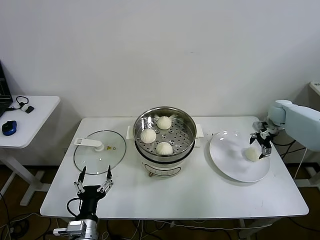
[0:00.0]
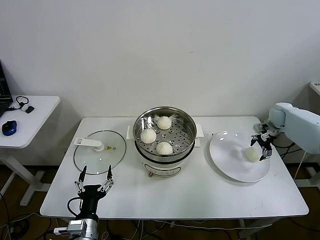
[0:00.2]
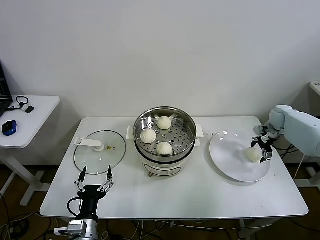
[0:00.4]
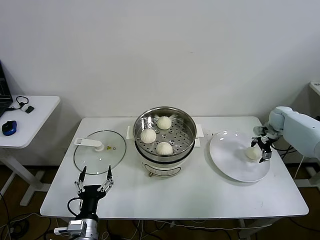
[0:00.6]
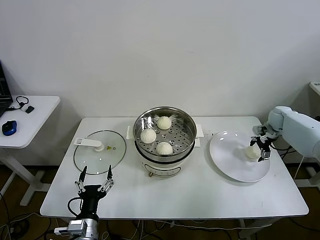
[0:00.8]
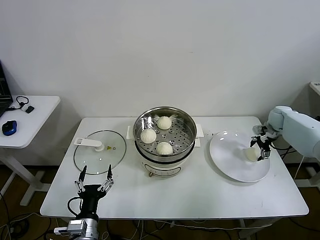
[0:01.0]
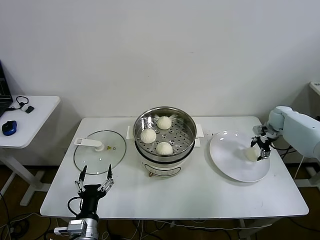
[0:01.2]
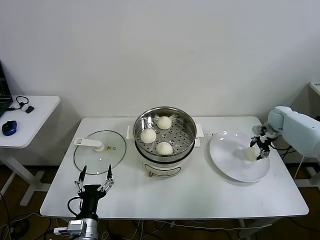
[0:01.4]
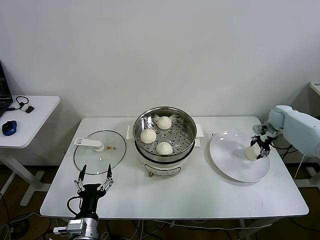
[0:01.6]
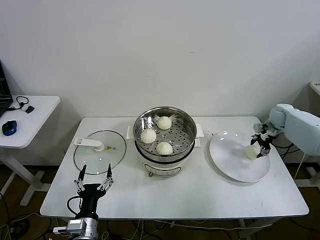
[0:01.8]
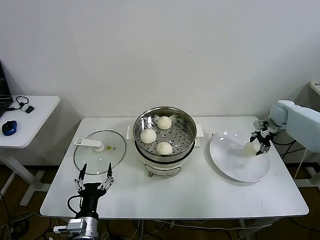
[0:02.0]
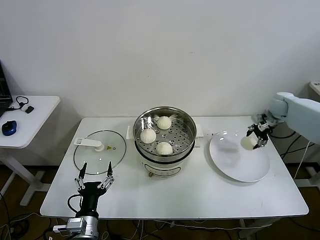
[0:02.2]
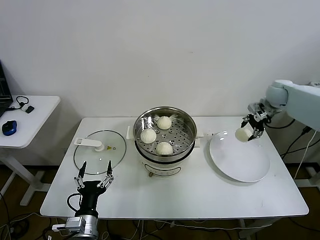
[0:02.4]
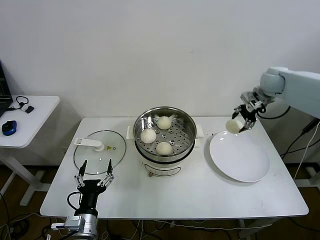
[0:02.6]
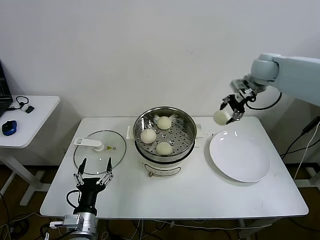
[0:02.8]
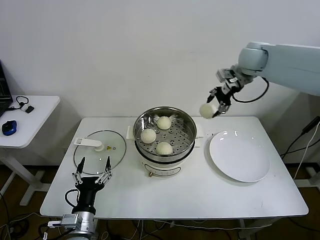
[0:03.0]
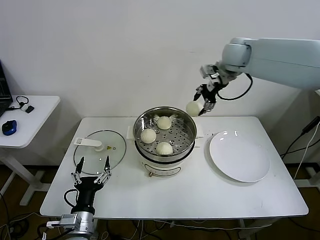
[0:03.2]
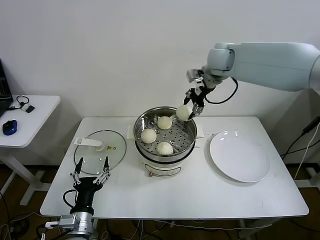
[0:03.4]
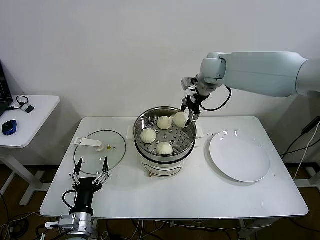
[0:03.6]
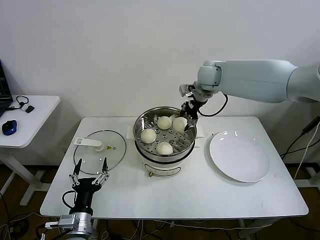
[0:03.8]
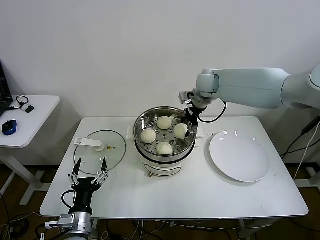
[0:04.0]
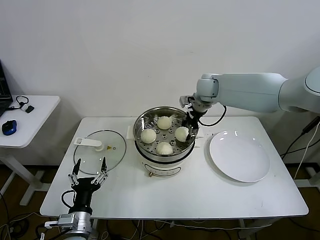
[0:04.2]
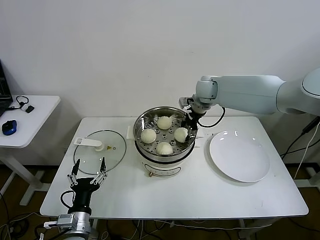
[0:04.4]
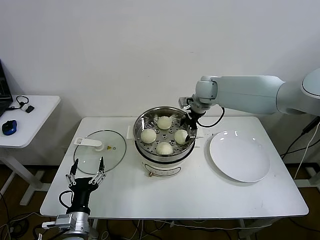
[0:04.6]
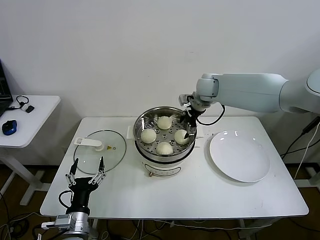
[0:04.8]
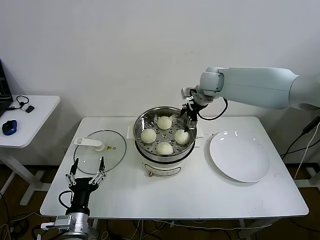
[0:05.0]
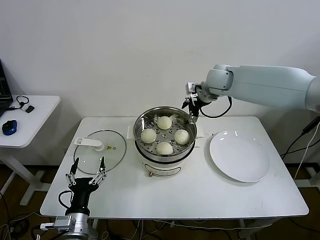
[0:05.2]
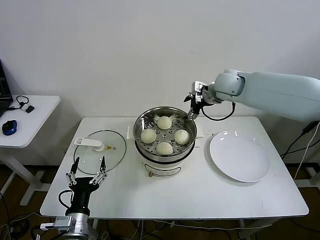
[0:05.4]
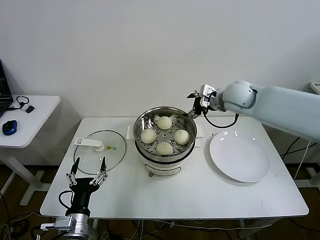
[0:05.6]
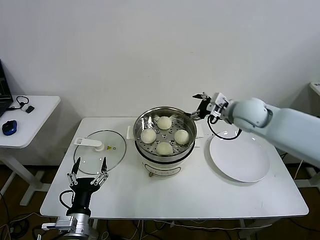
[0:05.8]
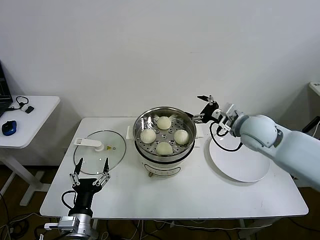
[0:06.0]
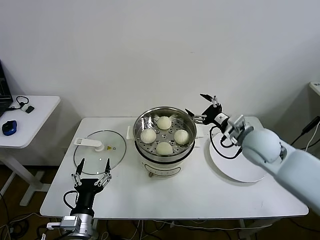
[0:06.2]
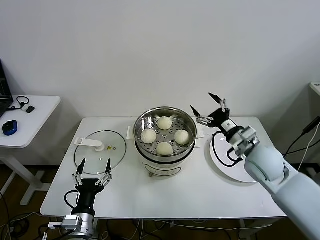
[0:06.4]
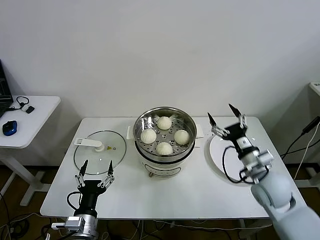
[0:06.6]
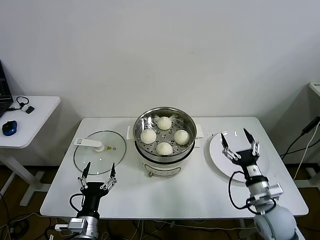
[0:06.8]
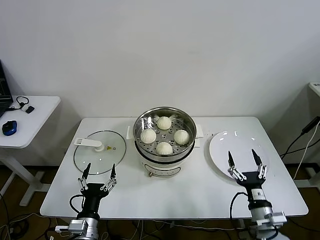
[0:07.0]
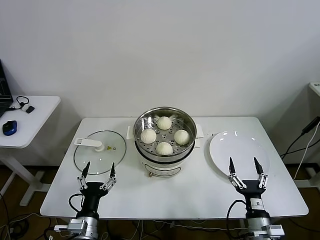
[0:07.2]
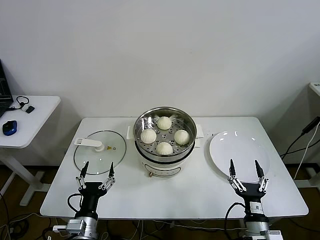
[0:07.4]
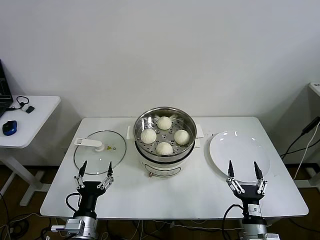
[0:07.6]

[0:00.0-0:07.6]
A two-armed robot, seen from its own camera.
Step, 0:01.6 to 0:04.8: Place the baozi on the steamer with right gripper.
0:00.0 to 0:01.6: The right gripper closes up.
0:01.6 to 0:03.0: The right gripper is displaced upward and to the left by roughly 30 cm.
0:03.0 to 0:04.6: The right gripper goes approximately 15 cm to the left and downward, and opens its fingers.
0:04.6 to 0:06.0: The right gripper moves backward and to the right, roughly 20 cm.
0:06.0 to 0:07.6: The right gripper goes approximately 40 cm backward and downward.

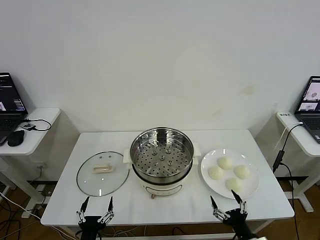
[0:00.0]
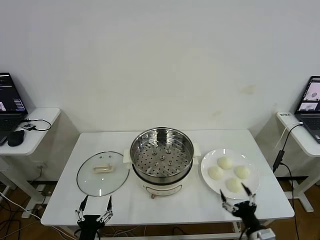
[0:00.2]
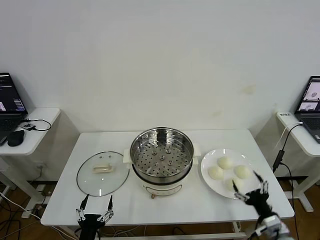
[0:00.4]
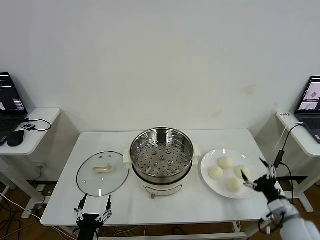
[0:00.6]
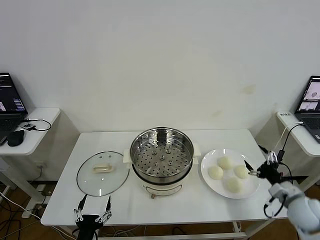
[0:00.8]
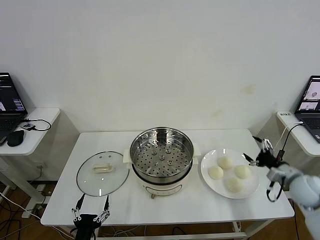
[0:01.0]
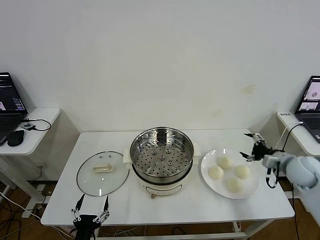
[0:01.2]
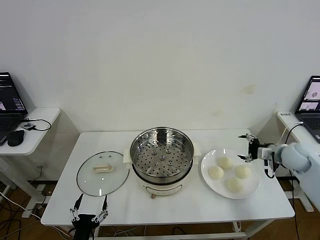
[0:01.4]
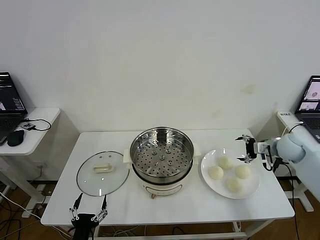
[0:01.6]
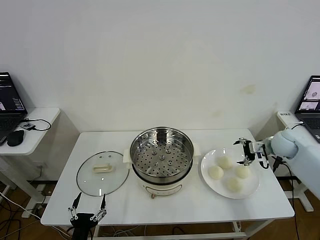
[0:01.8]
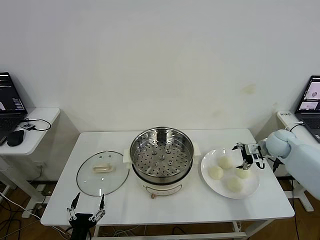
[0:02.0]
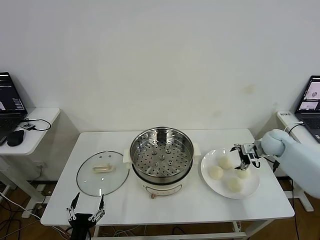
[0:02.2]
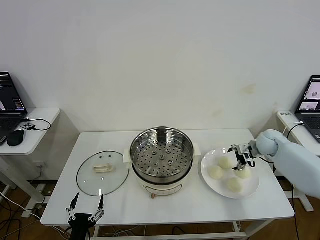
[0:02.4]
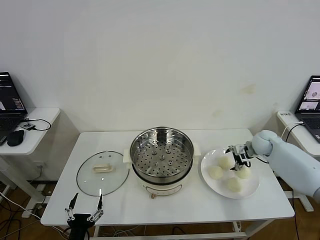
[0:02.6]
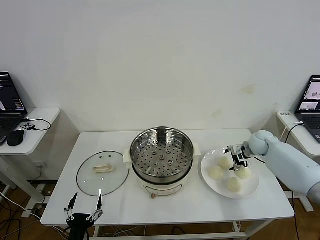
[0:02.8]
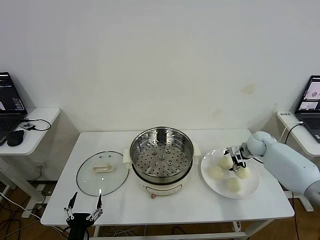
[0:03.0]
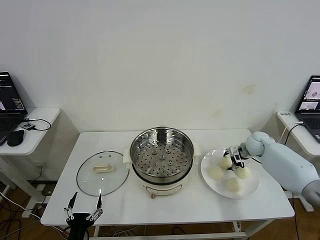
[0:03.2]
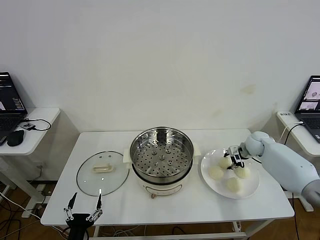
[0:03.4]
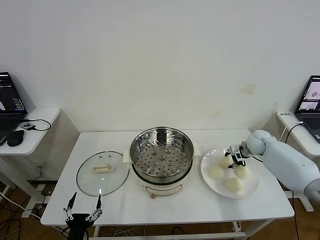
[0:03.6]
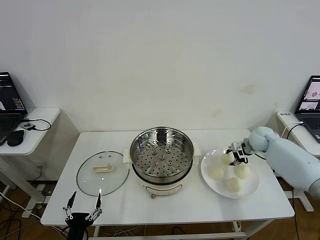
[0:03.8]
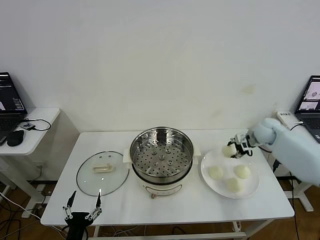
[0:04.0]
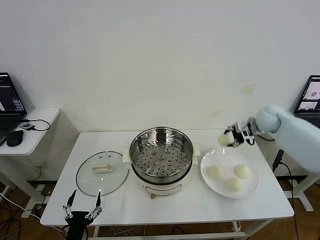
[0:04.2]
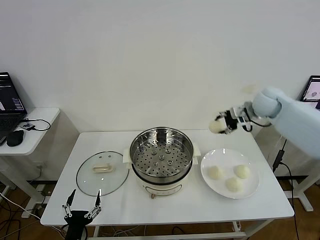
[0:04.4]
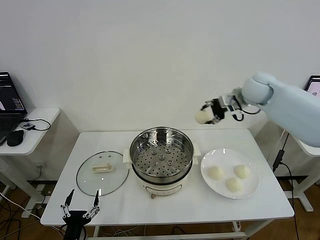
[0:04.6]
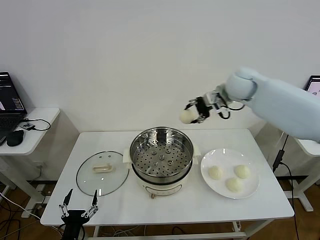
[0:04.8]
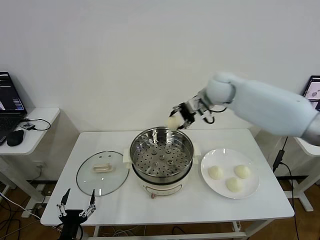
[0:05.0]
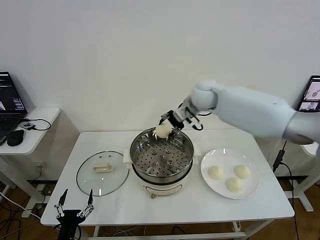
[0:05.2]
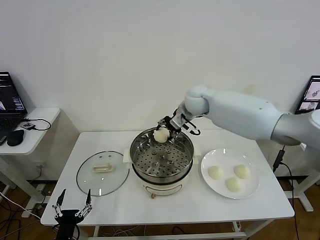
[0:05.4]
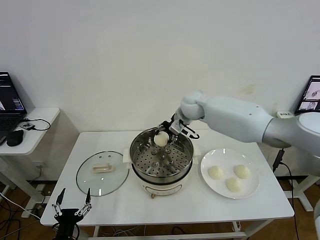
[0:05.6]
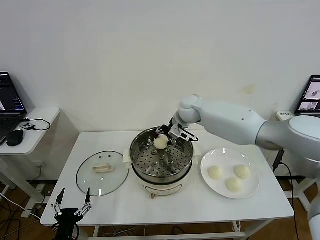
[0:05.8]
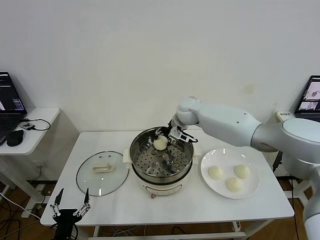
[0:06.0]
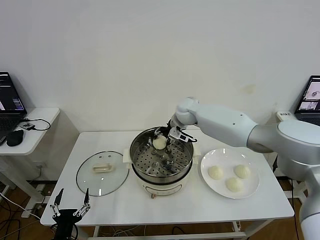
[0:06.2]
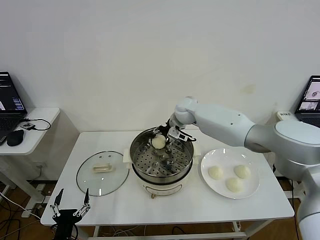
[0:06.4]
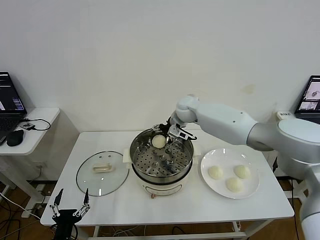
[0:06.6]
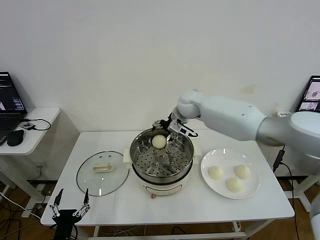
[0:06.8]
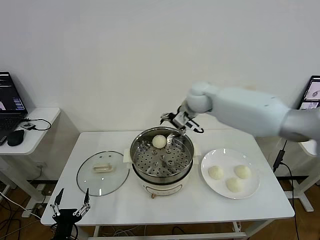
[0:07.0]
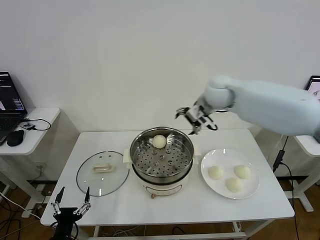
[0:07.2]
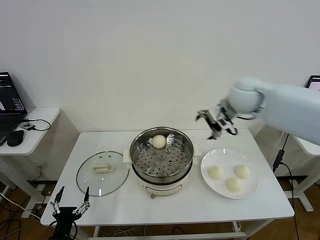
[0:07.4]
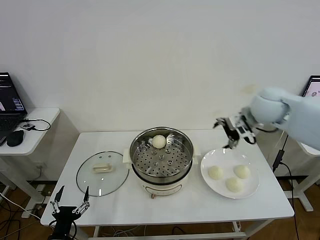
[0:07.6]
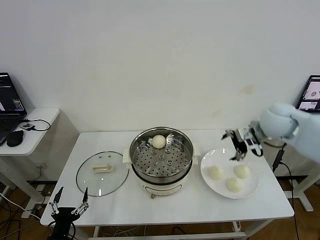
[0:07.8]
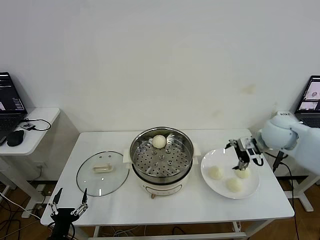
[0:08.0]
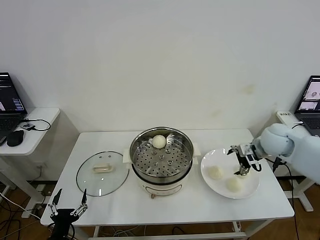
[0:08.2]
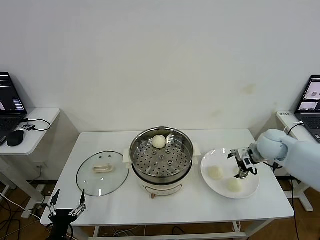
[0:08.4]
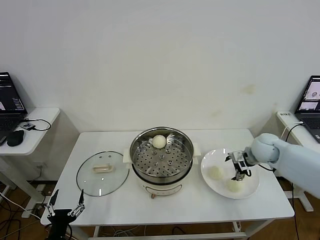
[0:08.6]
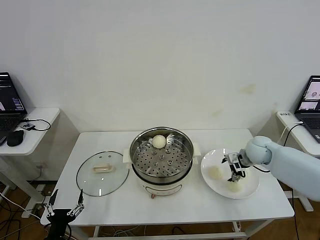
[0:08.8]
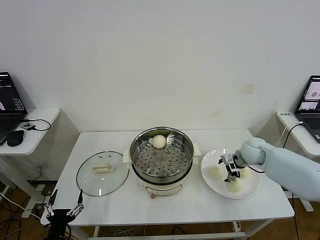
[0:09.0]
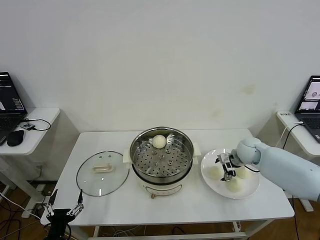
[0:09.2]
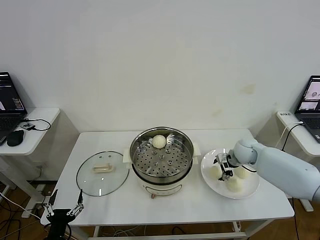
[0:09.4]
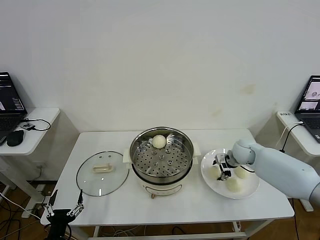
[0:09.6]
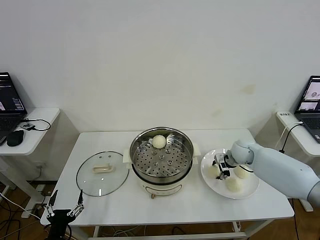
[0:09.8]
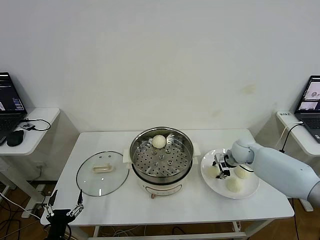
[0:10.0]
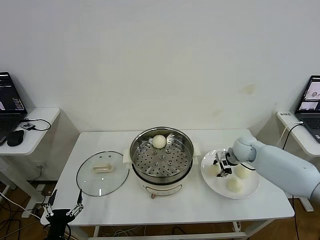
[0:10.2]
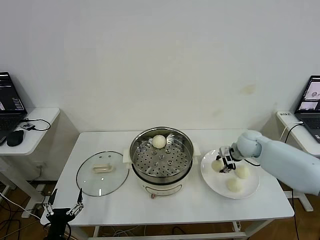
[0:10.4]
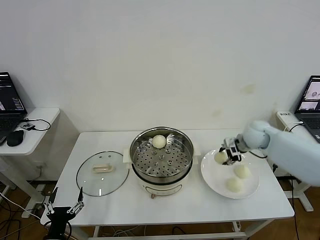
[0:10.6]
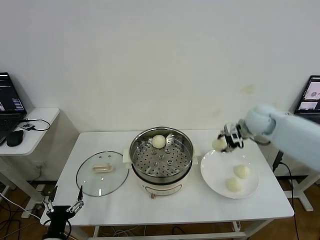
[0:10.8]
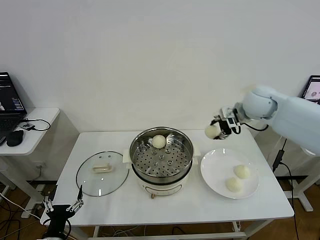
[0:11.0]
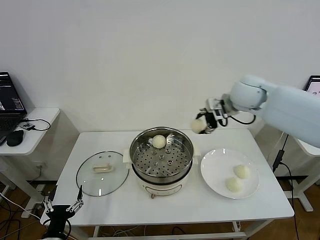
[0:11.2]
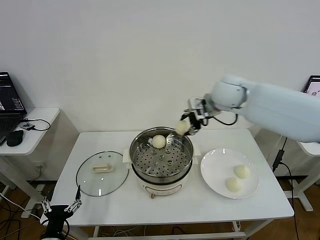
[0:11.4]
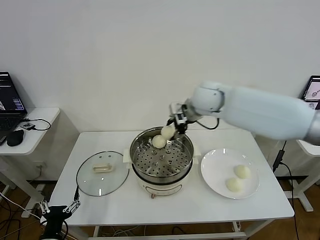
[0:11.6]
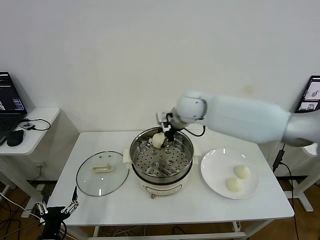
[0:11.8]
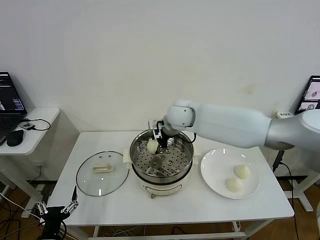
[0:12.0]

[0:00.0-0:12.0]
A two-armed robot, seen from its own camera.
Step, 0:00.0 to 0:03.4: Grasp the baozi in the plate with right gripper.
Step, 0:03.6 to 0:06.6: Place the baozi on the steamer with right gripper.
Step, 0:06.8 to 0:10.0: Grasp the baozi in the plate with right gripper.
0:01.6 to 0:03.0: The right gripper moves downward and forward, approximately 10 cm.
0:03.0 to 0:04.4: The right gripper travels upward by some 25 cm, and closes its fingers.
0:04.4 to 0:06.0: The right gripper moves to the left and downward, about 25 cm.
0:06.0 to 0:07.6: The right gripper goes some 25 cm to the right and backward, and opens.
0:07.6 to 0:09.0: The right gripper shifts about 20 cm downward.
0:09.0 to 0:10.4: The right gripper shifts by roughly 5 cm, and closes.
0:10.4 to 0:12.0: The right gripper heads to the left, covering some 30 cm.

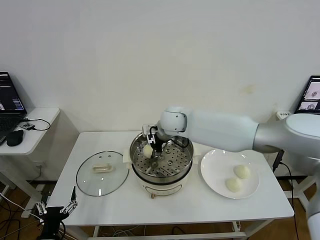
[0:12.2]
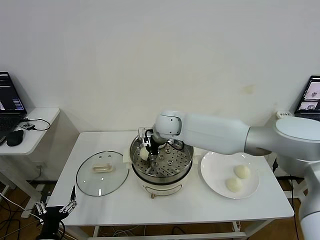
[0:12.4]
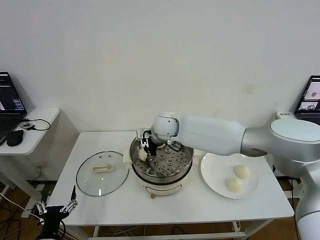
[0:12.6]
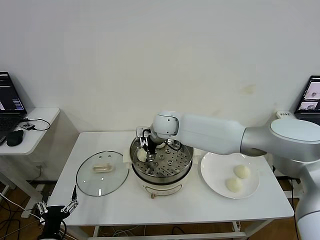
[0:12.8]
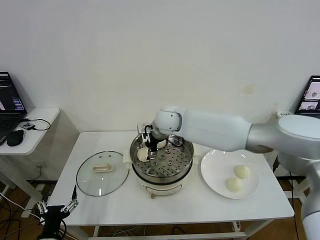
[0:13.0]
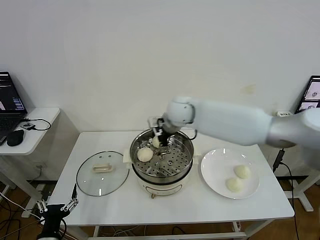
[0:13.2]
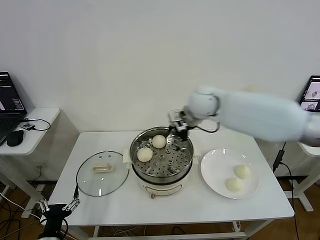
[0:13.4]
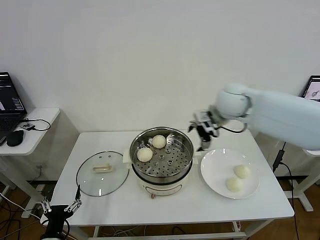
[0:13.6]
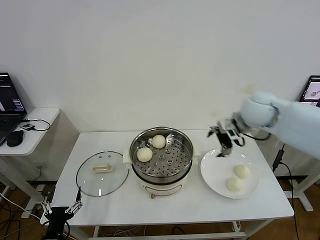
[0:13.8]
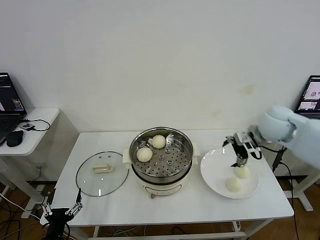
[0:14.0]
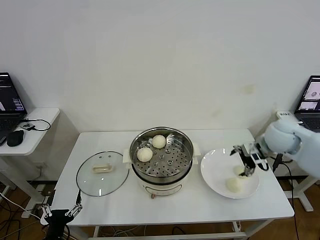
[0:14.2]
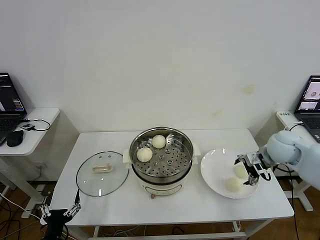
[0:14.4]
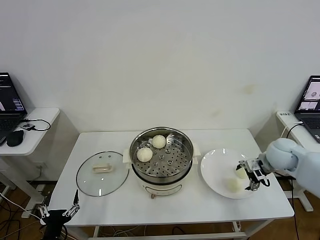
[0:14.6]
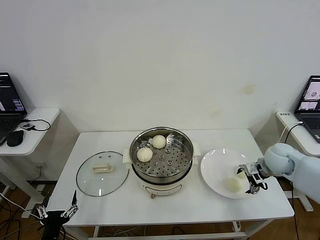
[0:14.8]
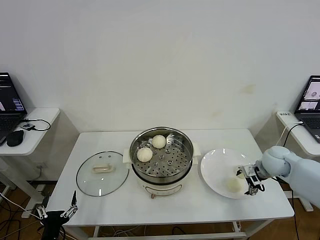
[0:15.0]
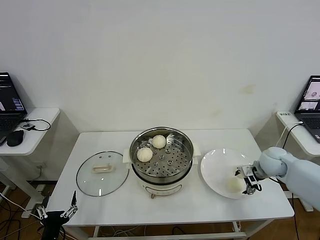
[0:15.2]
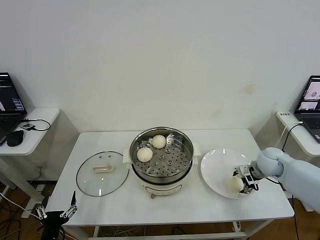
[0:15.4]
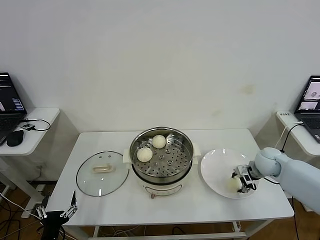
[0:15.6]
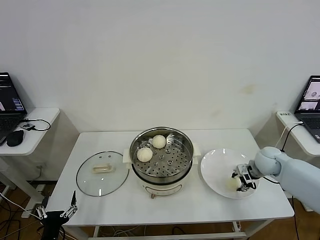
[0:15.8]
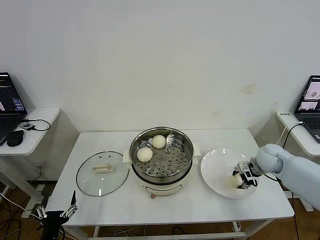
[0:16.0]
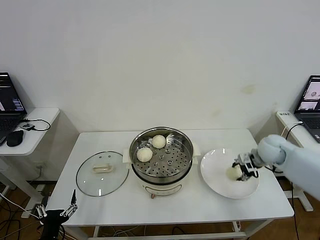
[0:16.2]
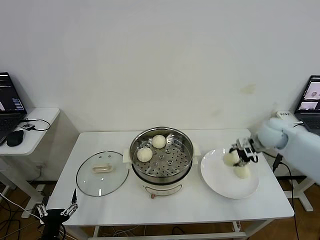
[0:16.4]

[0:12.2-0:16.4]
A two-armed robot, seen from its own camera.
Step, 0:13.2 to 0:15.8: Grasp the baozi in the plate with right gripper.
0:12.2 to 0:13.6: The right gripper goes about 25 cm to the right and upward, and opens.
0:13.6 to 0:15.0: The right gripper is displaced downward and to the right by some 25 cm.
0:15.0 to 0:16.4: The right gripper moves upward and forward, some 10 cm, and closes.
